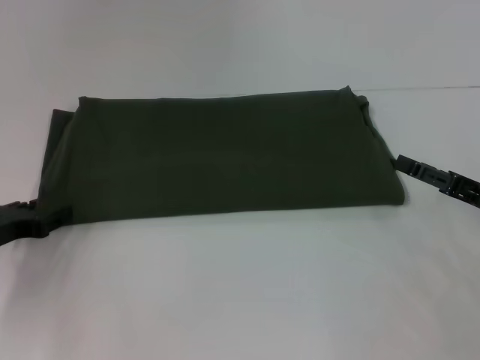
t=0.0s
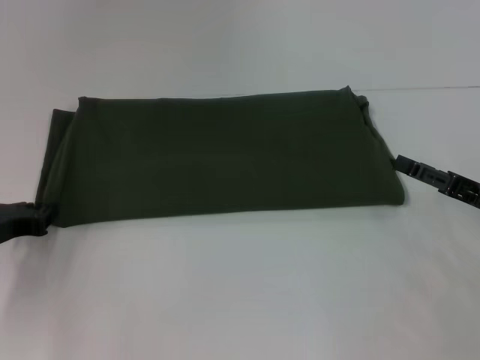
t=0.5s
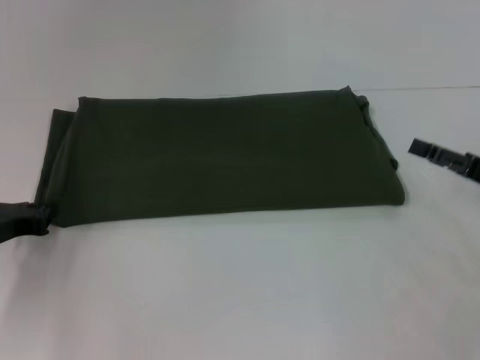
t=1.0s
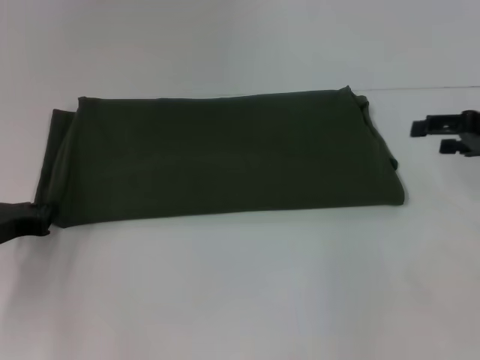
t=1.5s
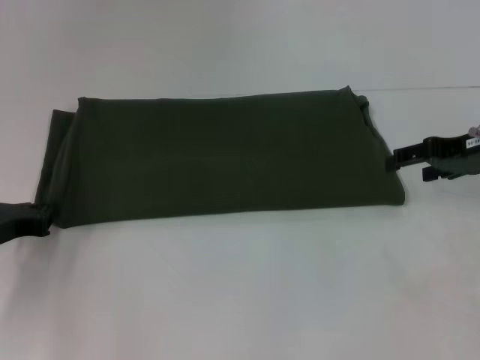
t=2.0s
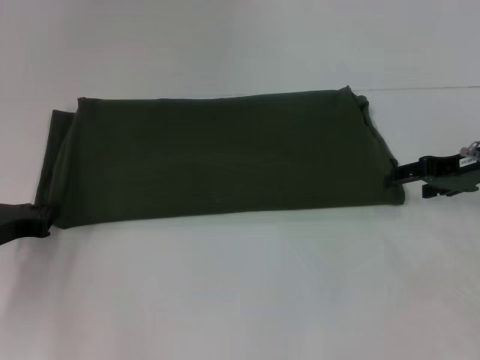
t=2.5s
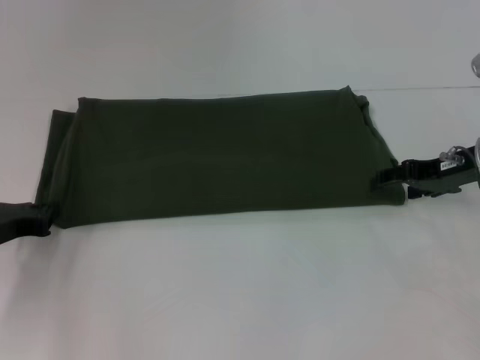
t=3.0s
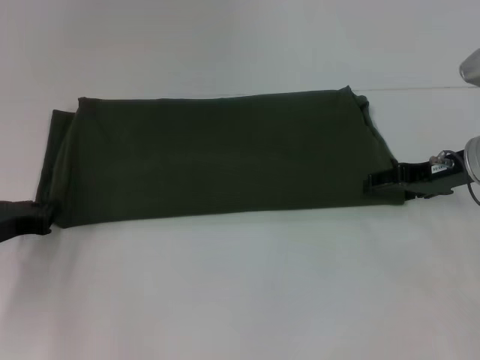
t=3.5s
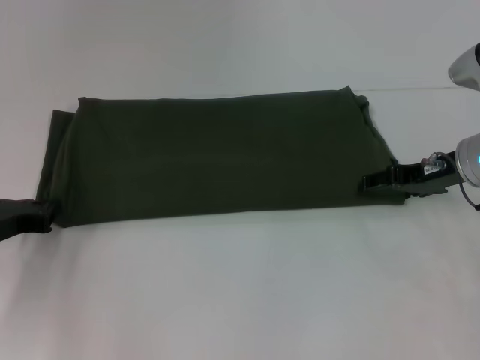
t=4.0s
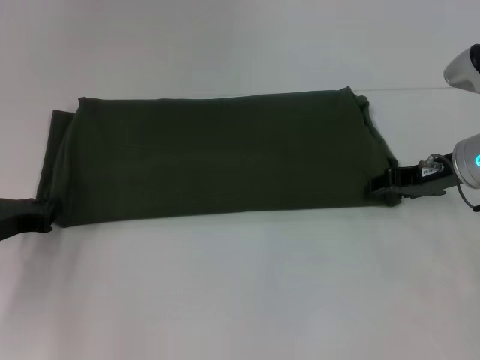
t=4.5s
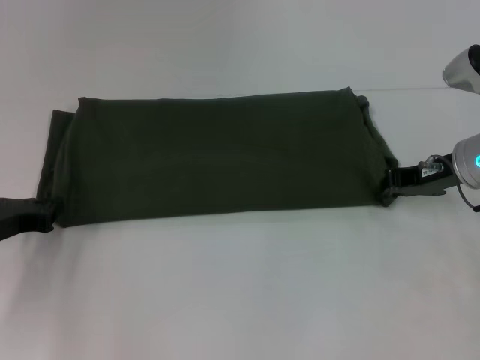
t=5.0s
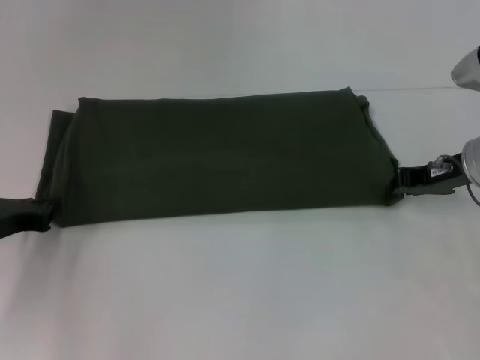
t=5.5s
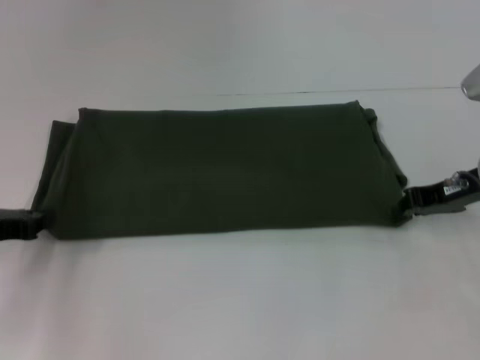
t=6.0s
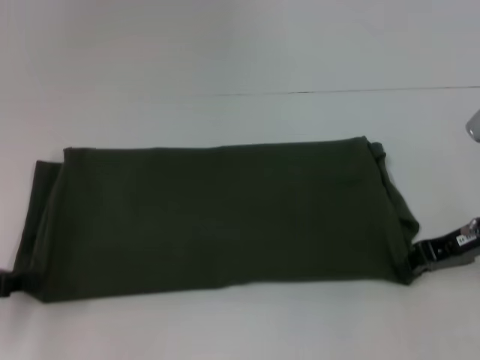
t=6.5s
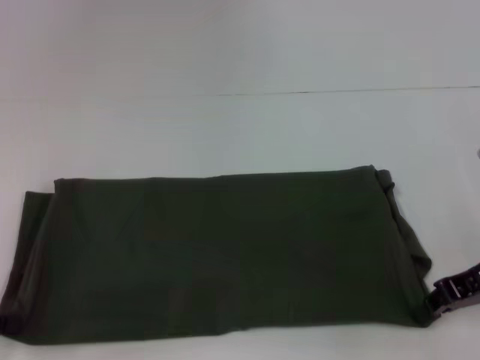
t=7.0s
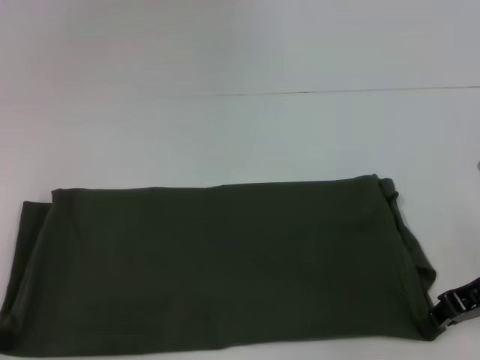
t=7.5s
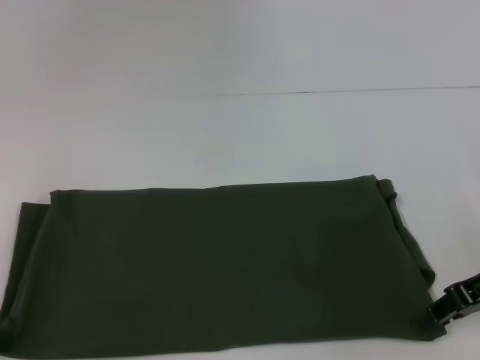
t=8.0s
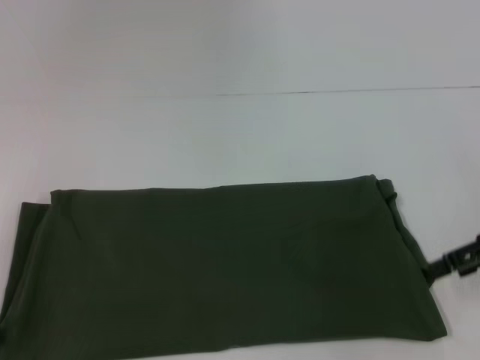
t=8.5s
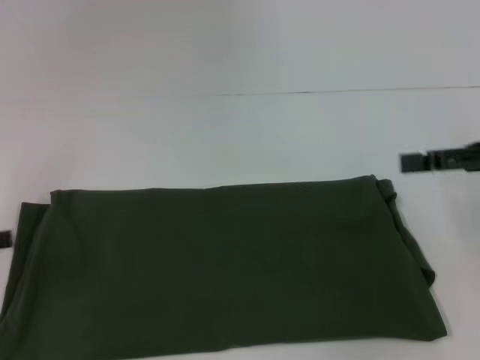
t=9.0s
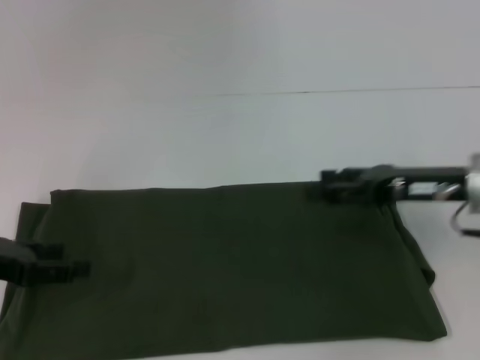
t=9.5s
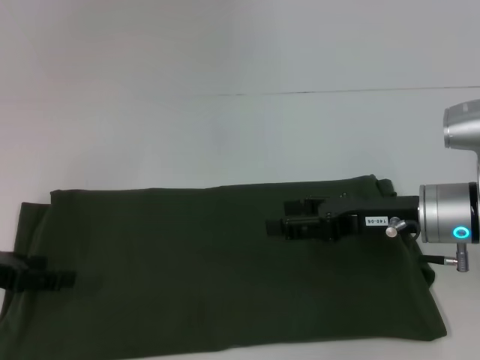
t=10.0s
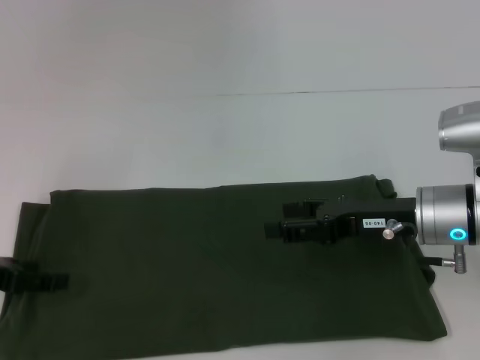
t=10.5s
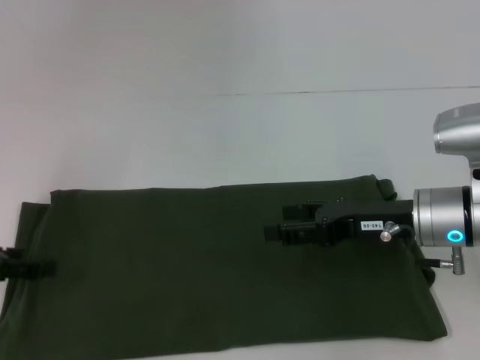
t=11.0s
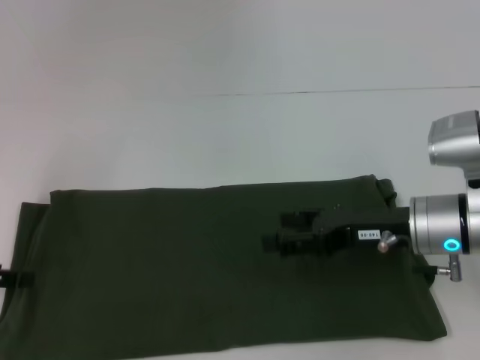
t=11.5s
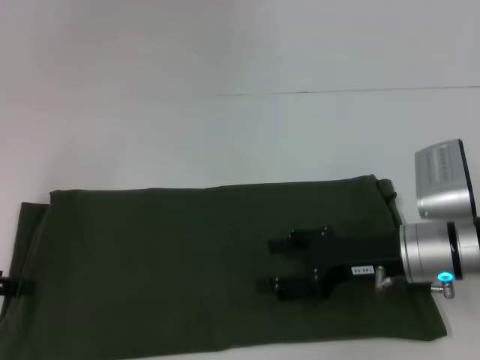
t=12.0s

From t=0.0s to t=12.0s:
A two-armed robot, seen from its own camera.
From t=0.0s to t=2.0s: The right gripper moves forward and upward, roughly 15 cm.
From t=2.0s to t=4.0s: The right gripper ends up some 5 cm from where it was.
From t=4.0s to t=6.0s: The right gripper closes its fingers.
From t=6.0s to t=8.0s: The grippers both shift backward by some 5 cm.
From t=8.0s to t=10.0s: The left gripper shifts by roughly 5 cm, and opens up, while the right gripper heads to the left, covering some 10 cm, and opens its fingers.
From t=10.0s to t=12.0s: The grippers make only small movements.

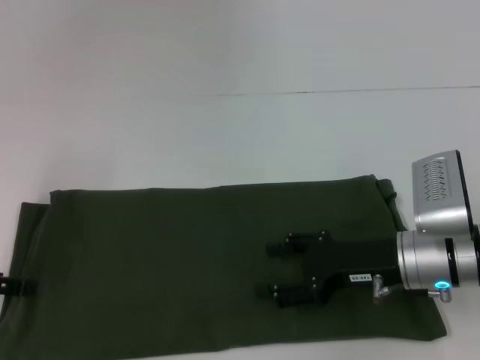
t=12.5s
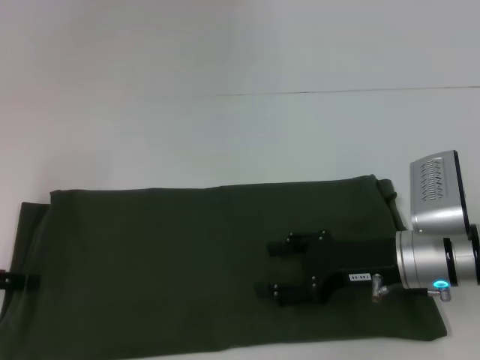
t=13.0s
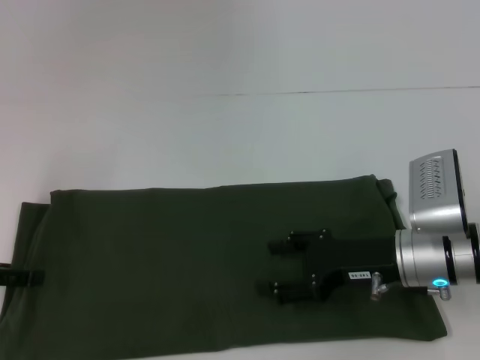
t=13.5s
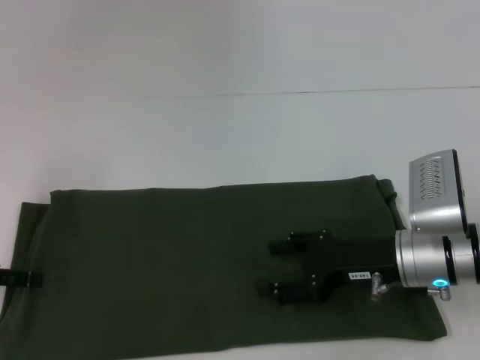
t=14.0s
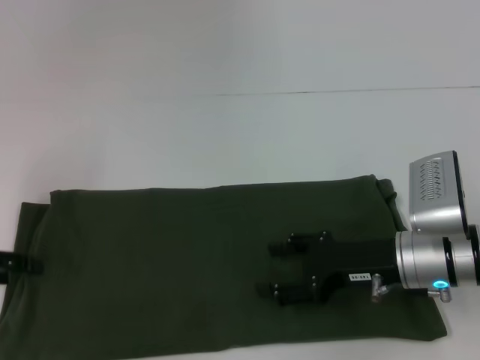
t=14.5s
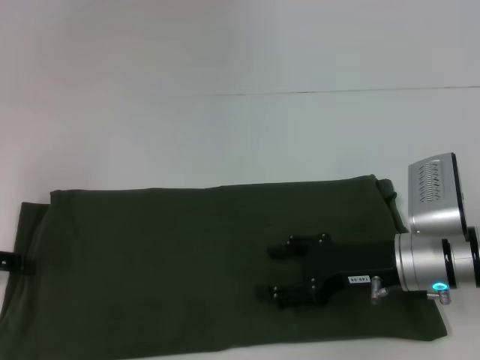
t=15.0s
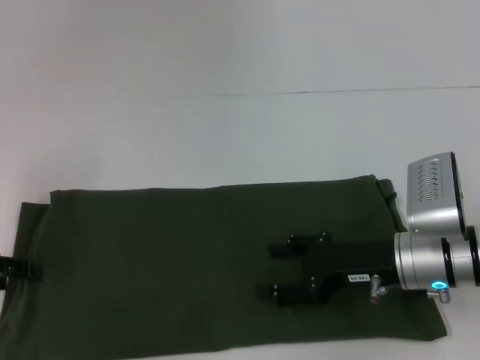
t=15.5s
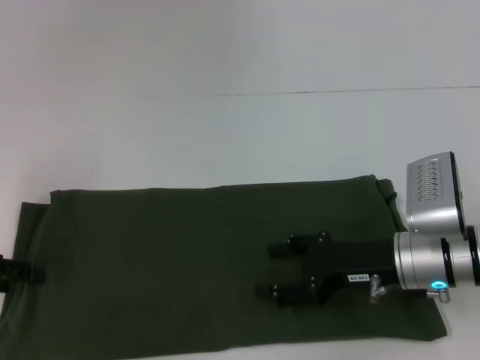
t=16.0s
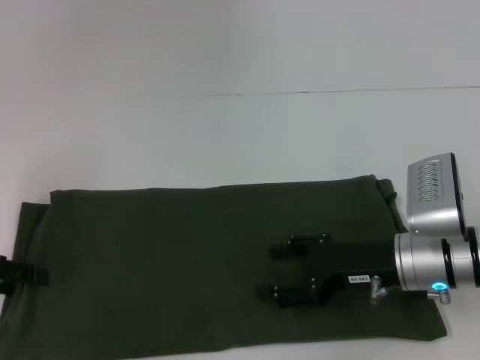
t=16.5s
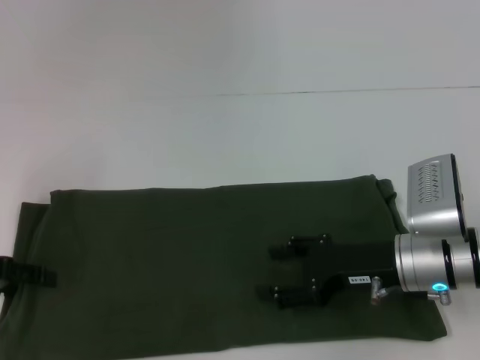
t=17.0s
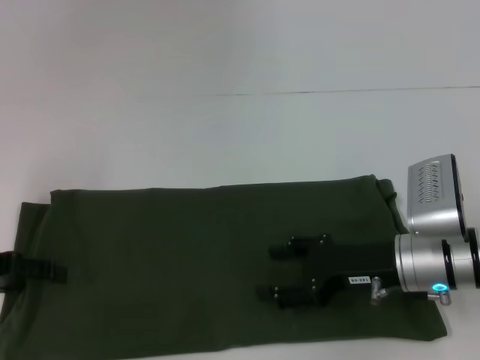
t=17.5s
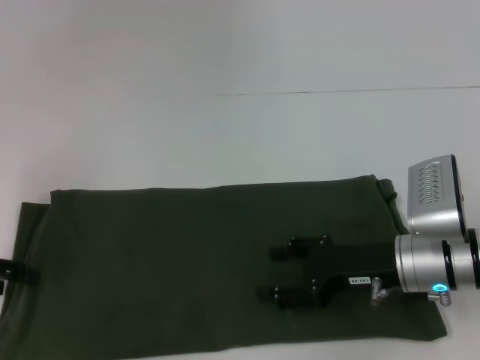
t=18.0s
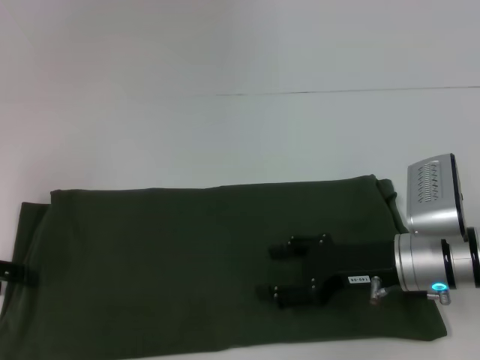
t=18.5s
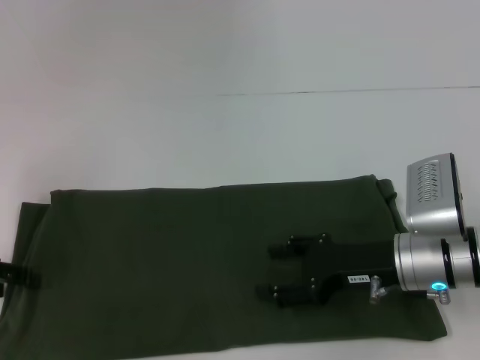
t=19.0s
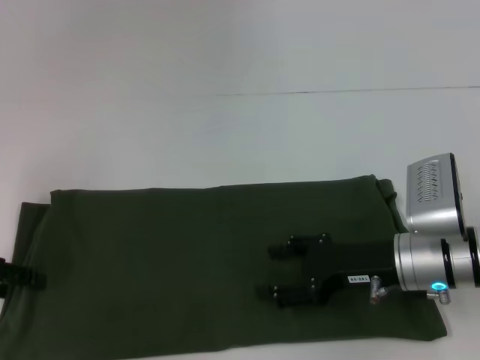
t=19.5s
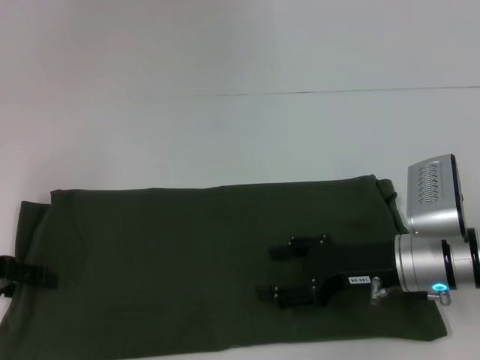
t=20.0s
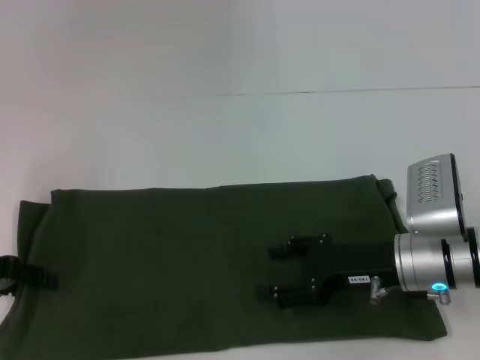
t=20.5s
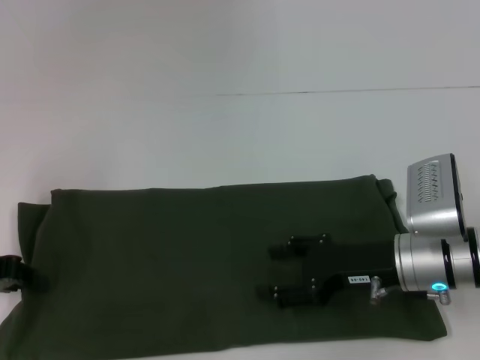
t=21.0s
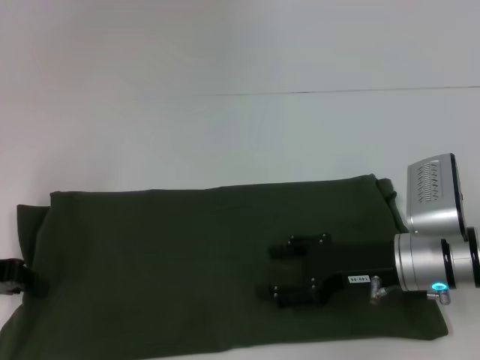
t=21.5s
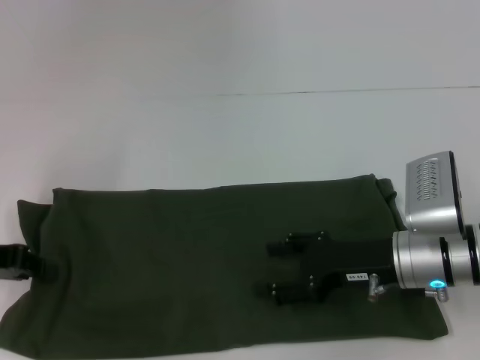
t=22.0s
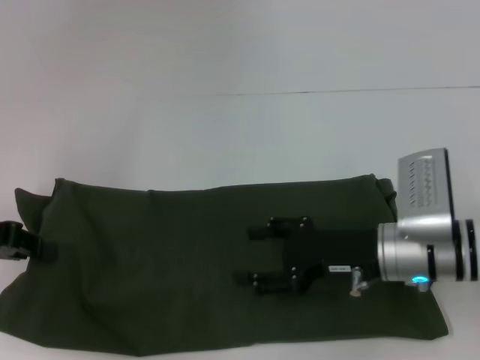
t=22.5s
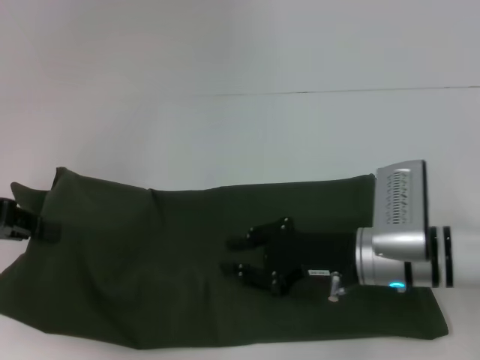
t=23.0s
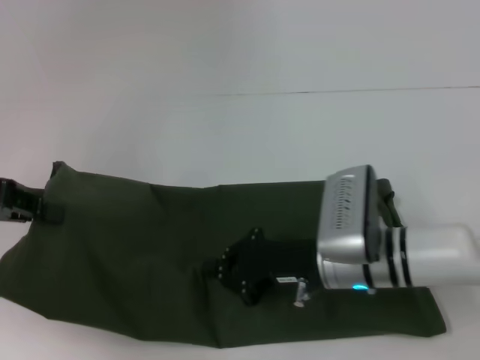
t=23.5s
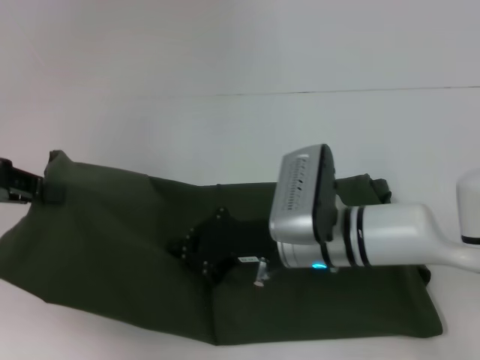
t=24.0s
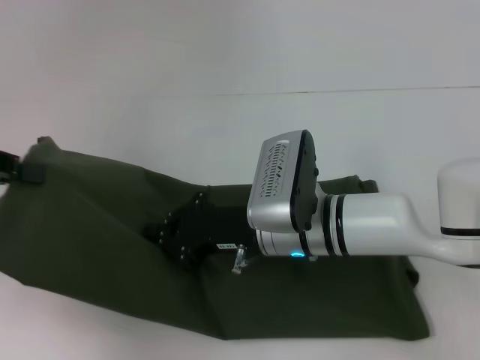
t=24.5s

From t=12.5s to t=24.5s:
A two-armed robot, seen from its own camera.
From t=12.5s to t=14.5s: The grippers stay close to where they were, moving slightly.
From t=14.5s to t=16.5s: The two grippers keep their place.
From t=16.5s to t=18.5s: Both grippers stay put.
From t=20.5s to t=22.5s: The left gripper closes up.
From t=22.5s to t=24.5s: The right gripper moves to the left, approximately 10 cm, and closes up. The left gripper heads upward, covering approximately 10 cm.

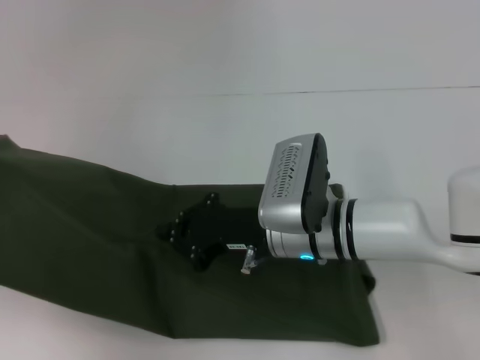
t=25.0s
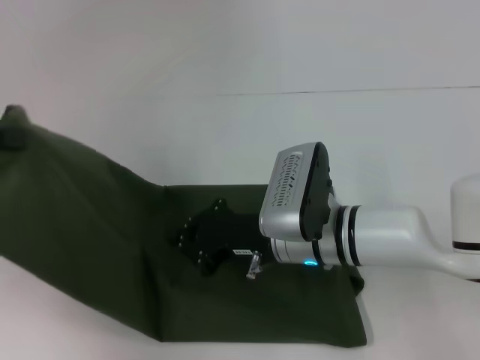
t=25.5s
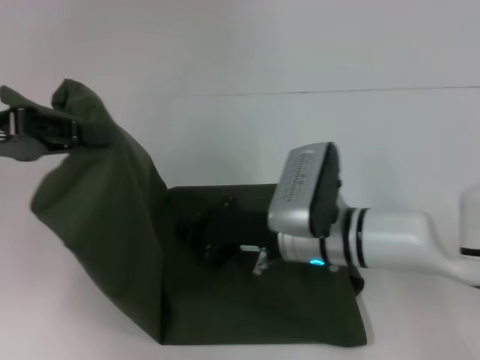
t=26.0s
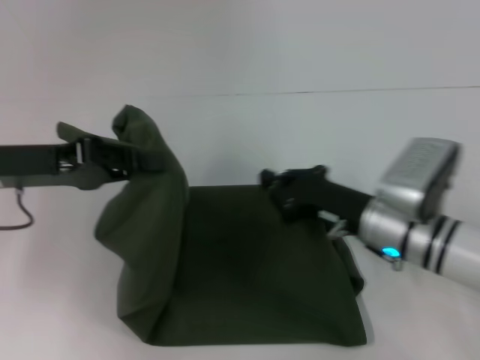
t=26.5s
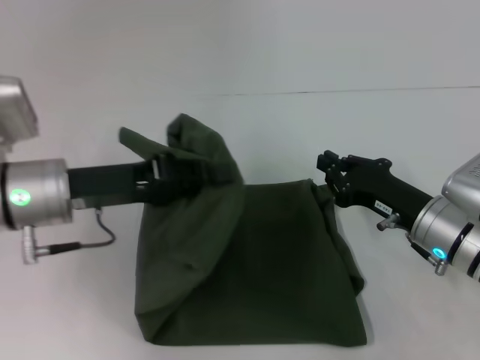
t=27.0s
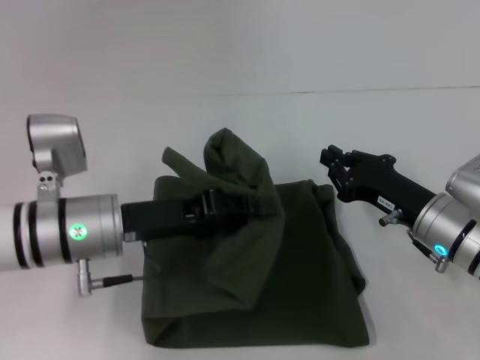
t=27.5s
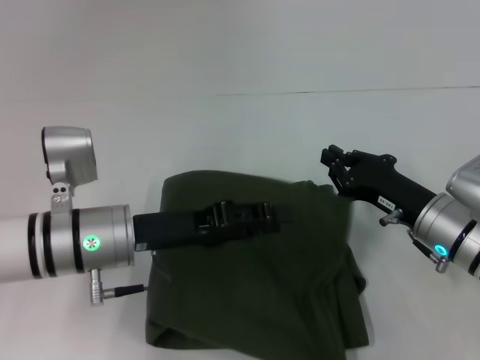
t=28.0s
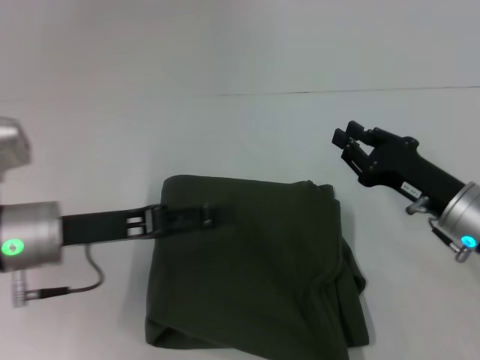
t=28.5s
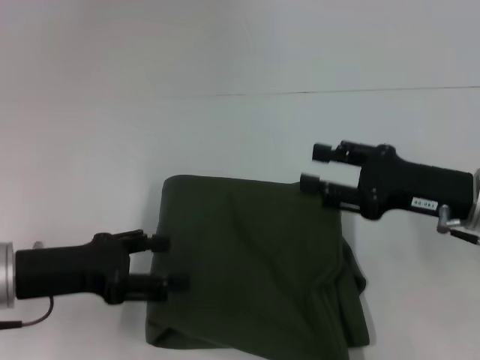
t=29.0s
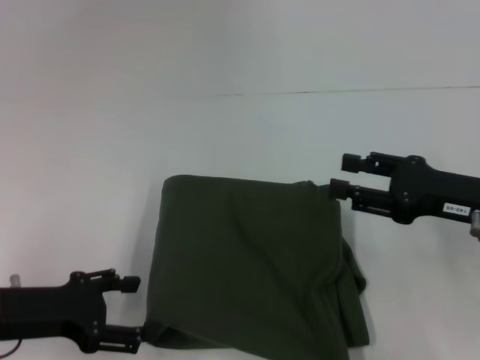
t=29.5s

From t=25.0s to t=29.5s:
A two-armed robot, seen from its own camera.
Step, from t=25.0s to t=28.0s: Fold the clothes with your left hand.
From t=25.0s to t=27.0s: The right gripper shifts approximately 15 cm to the right. Meanwhile the left gripper is displaced to the right and downward by some 20 cm.
From t=27.0s to t=29.5s: The left gripper is displaced backward, to the left and downward by approximately 10 cm, and opens. Meanwhile the right gripper is displaced upward and to the right by roughly 10 cm, and opens up.
